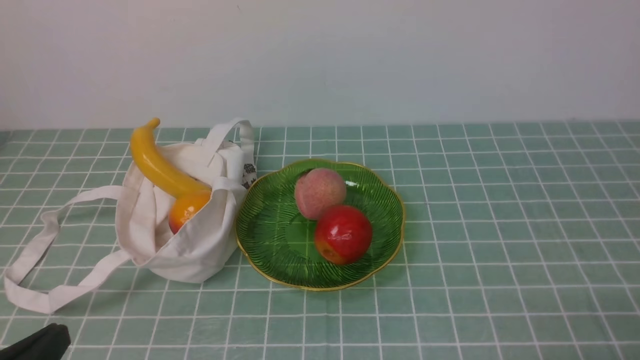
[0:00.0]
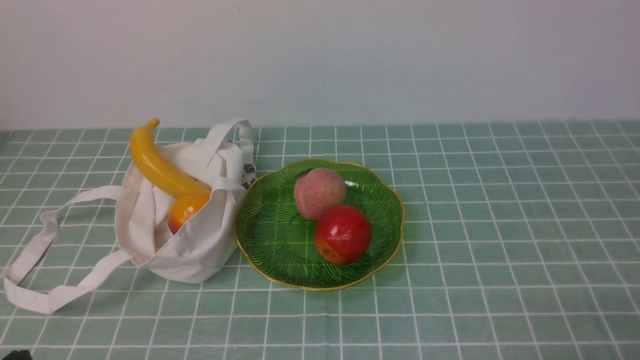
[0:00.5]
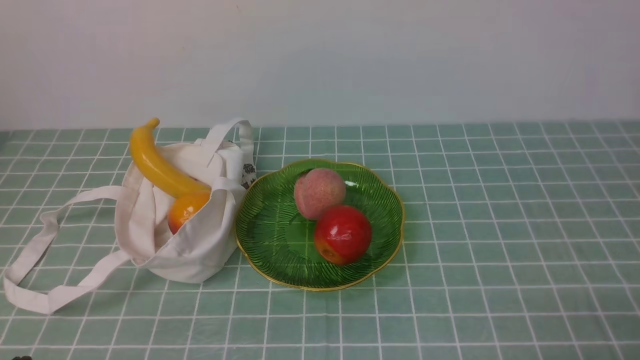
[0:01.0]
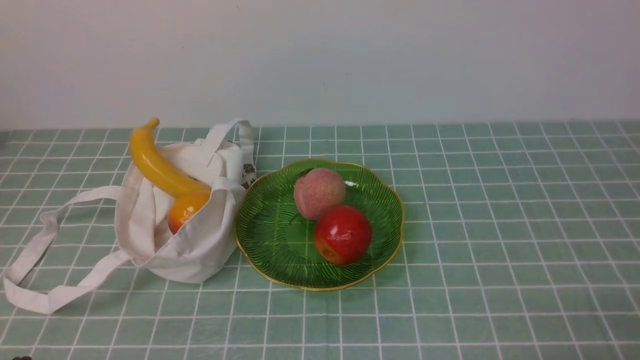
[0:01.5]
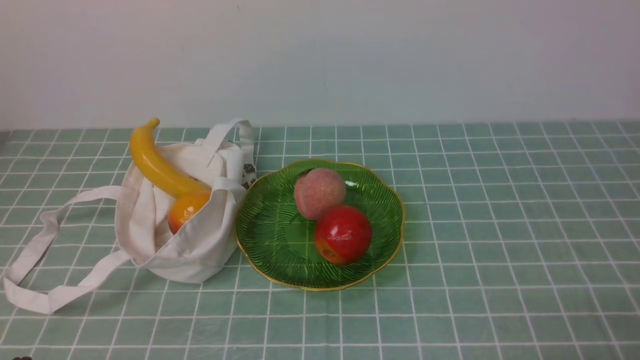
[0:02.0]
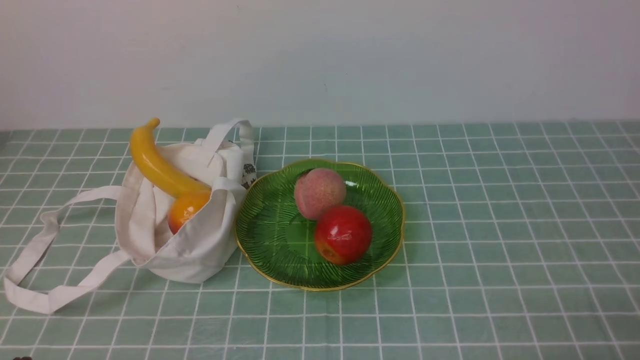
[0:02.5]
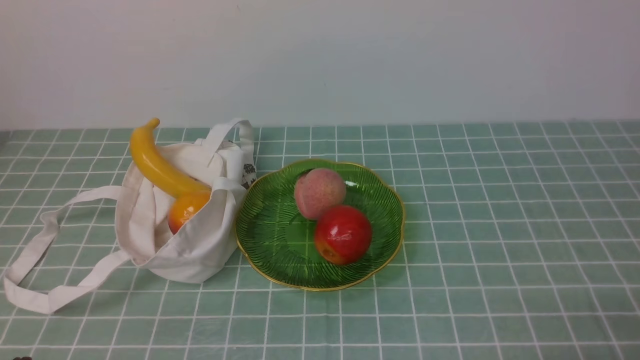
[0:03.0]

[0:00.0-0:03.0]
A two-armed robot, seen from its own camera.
0:00.0 to 0:01.5: The left gripper moves downward, about 5 cm.
0:01.5 to 0:03.0: Both grippers stay about where they are.
